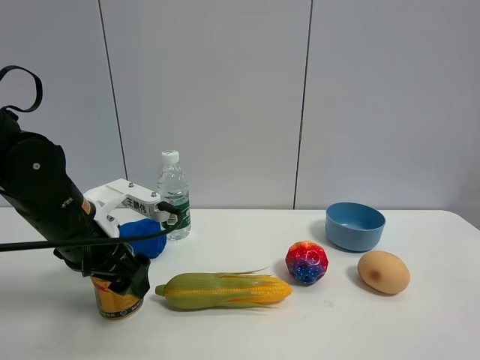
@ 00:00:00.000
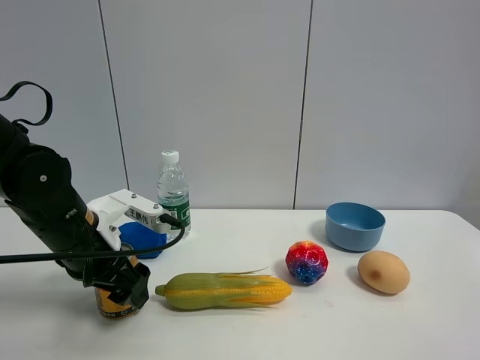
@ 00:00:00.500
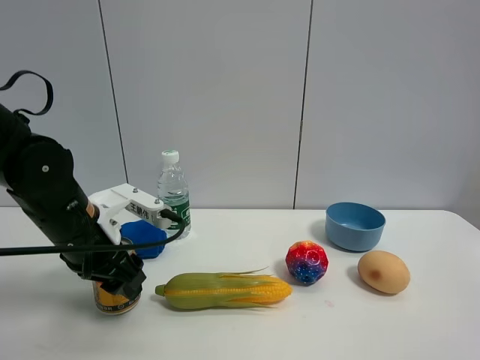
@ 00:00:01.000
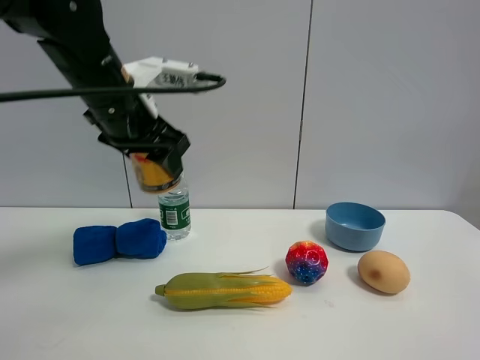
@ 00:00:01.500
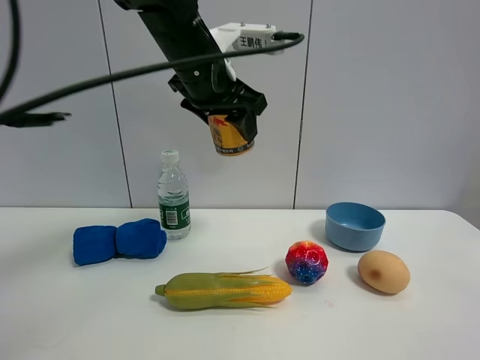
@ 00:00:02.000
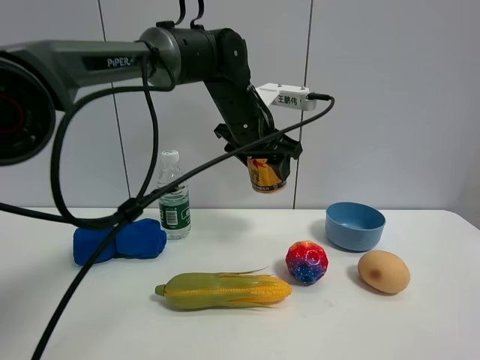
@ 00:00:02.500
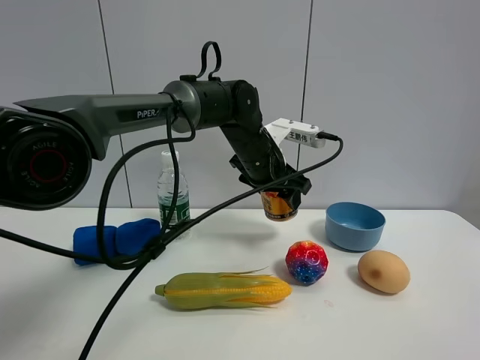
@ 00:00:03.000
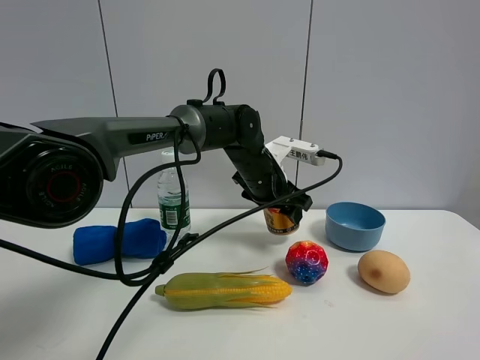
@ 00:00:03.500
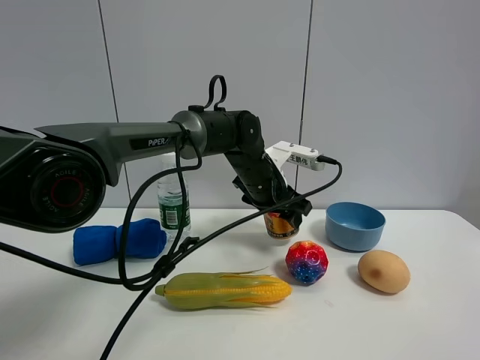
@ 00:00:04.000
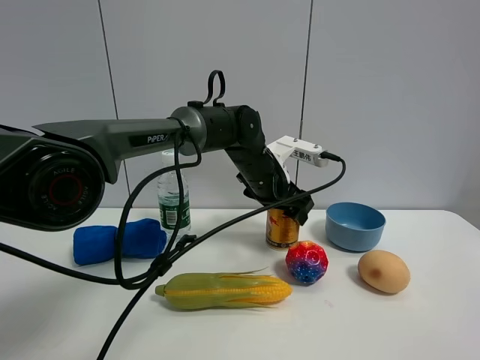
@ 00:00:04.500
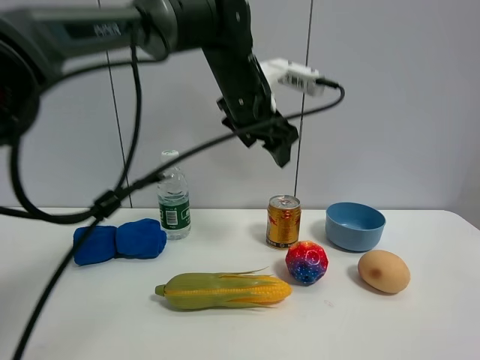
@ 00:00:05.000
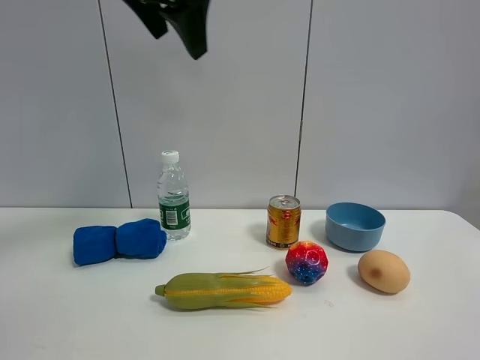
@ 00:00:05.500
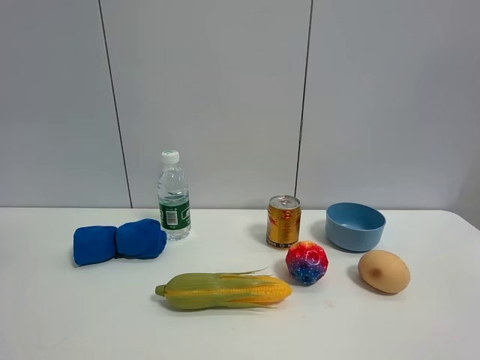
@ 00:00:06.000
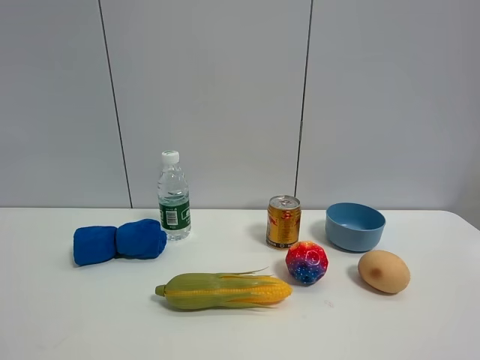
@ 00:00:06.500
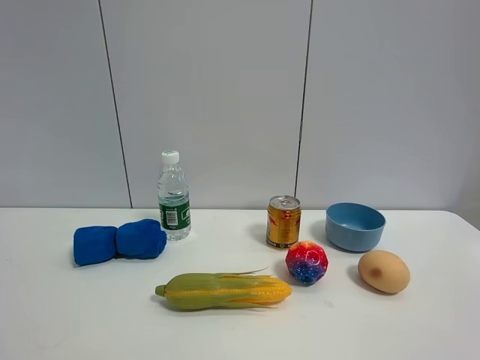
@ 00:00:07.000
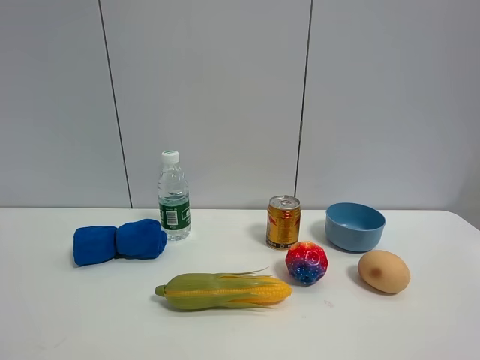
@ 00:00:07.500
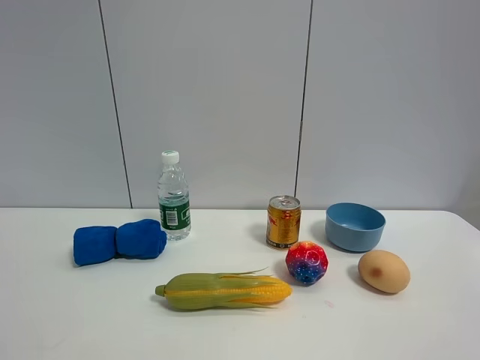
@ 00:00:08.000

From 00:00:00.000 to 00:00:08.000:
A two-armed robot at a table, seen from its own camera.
Task of the whole recording: the gripper move the object.
Step, from 00:00:01.000 to 00:00:04.500: Place the red bull on the table with the left gripper.
From 00:00:00.000 to 00:00:02.000: The left gripper travels upward, to the right and forward by approximately 25 cm, and closes up.
From 00:00:02.000 to 00:00:04.000: The left gripper shifts roughly 20 cm downward and to the right.
From 00:00:04.000 to 00:00:06.000: The left gripper heads to the left, upward and backward, covering some 50 cm, and opens its fingers.

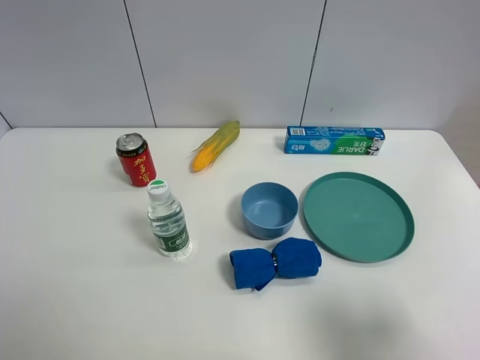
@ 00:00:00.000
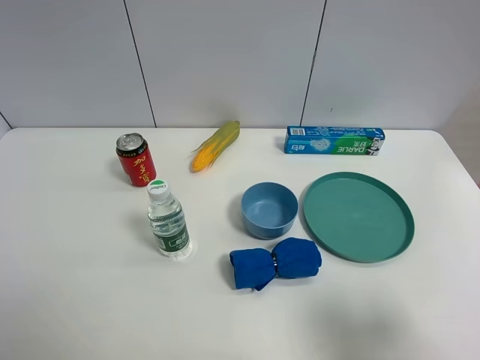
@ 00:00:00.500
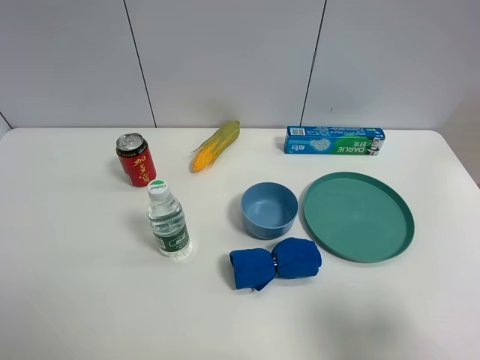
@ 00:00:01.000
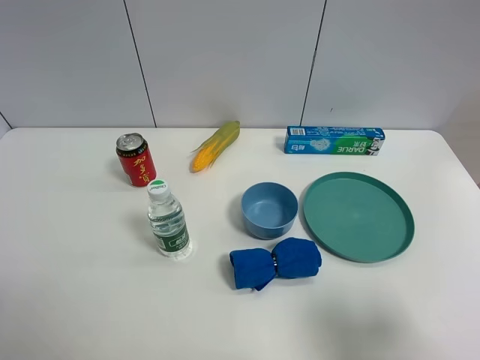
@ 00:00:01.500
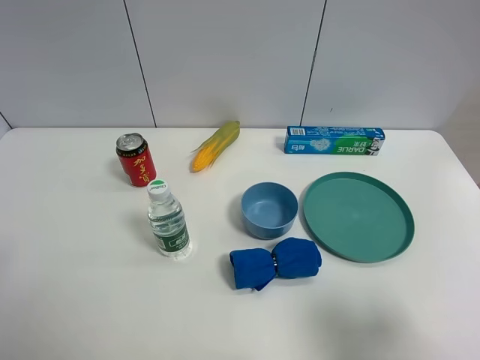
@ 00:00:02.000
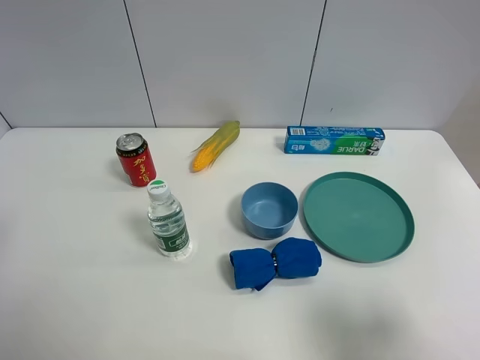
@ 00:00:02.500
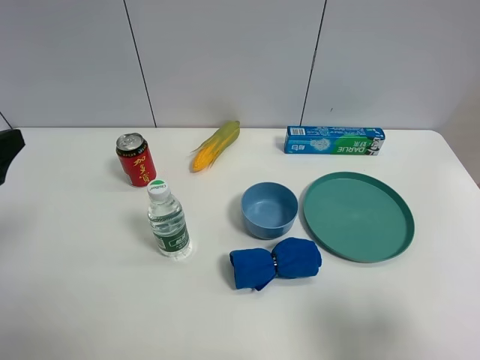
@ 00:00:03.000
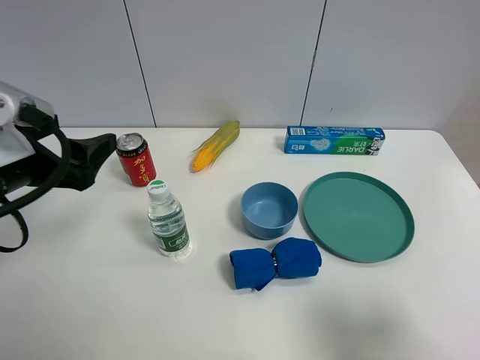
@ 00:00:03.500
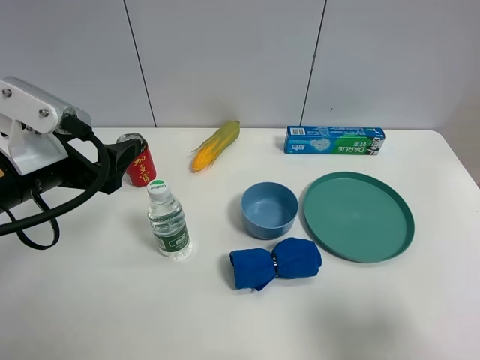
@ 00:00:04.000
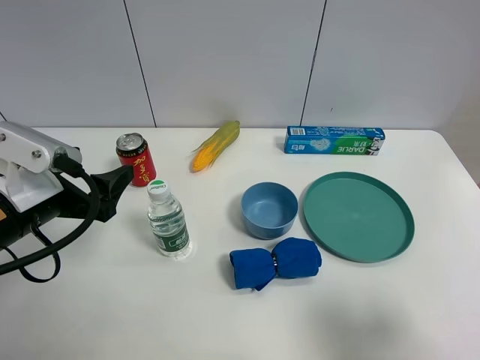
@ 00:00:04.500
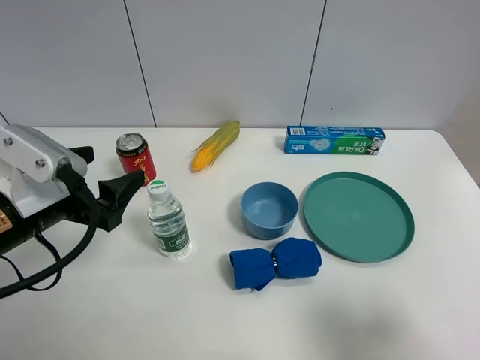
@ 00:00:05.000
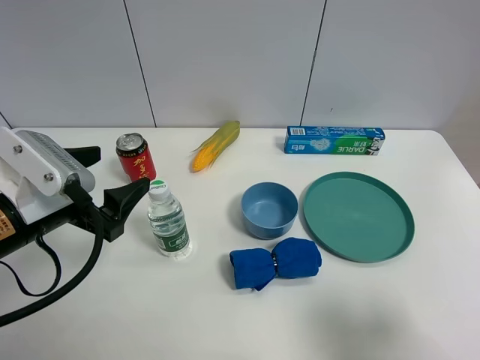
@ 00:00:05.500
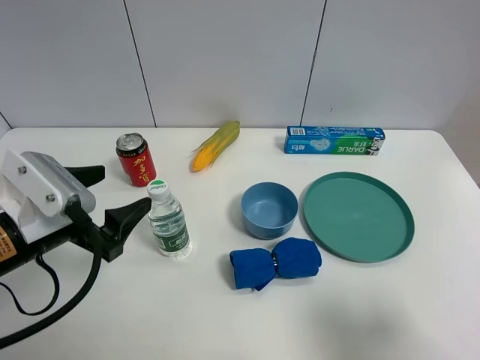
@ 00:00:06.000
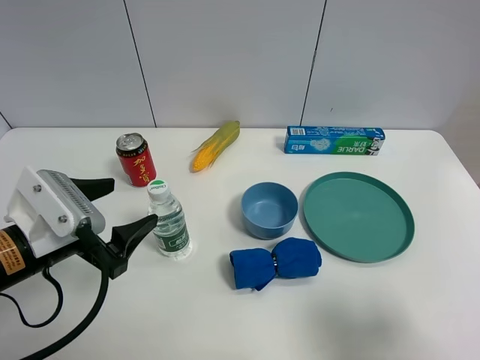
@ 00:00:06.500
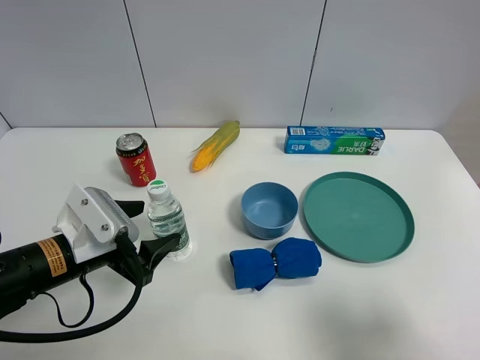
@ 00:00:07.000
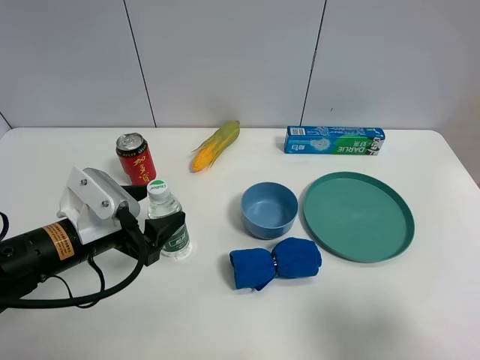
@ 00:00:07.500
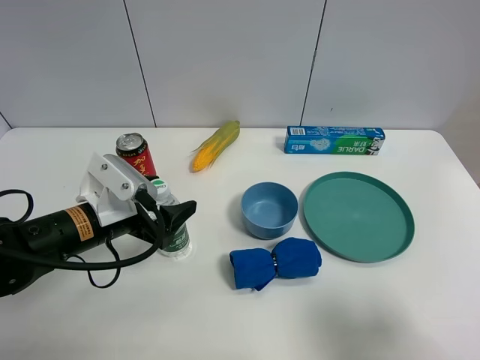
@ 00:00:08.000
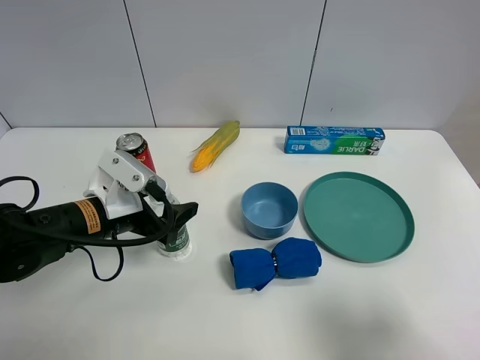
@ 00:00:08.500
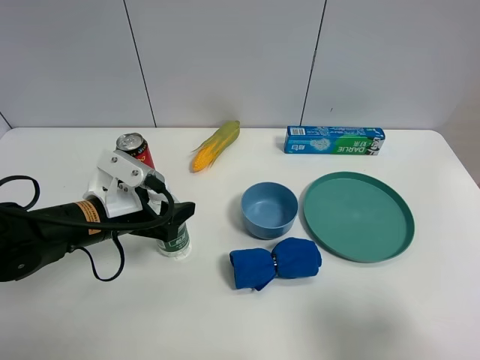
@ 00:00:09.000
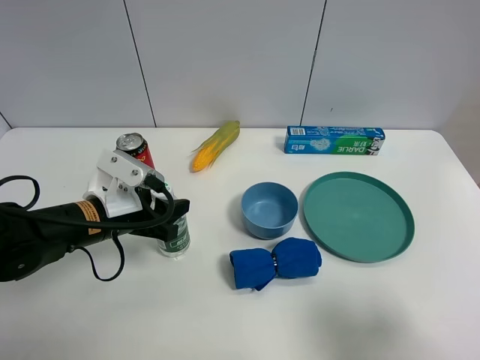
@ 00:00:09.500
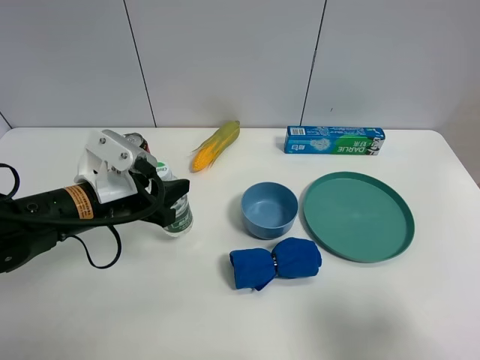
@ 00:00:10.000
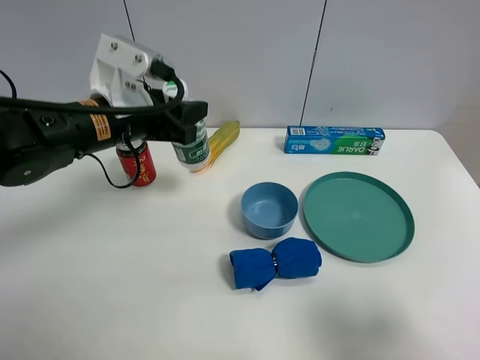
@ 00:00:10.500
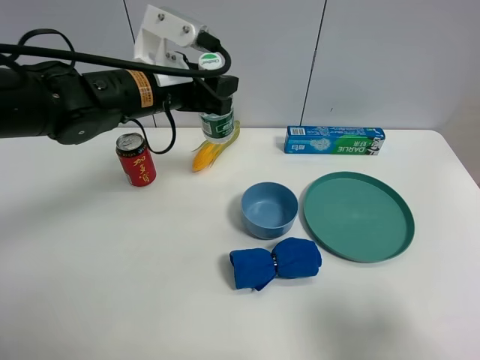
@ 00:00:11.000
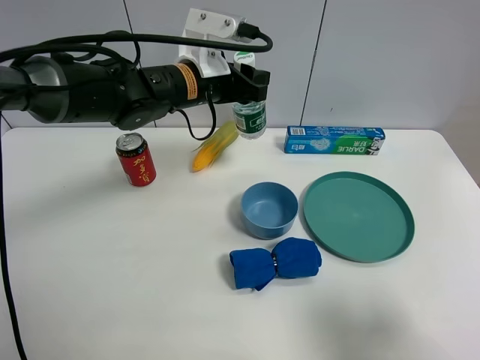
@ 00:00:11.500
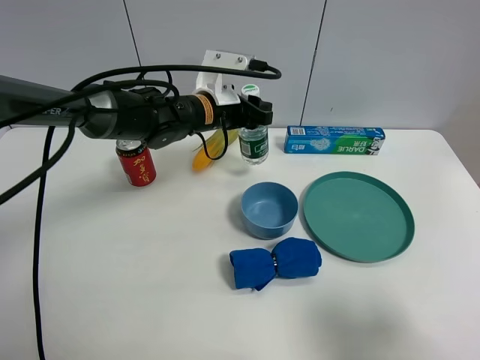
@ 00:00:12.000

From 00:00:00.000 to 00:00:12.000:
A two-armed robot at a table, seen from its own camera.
Task of the whole recording: the gripper move the object.
Step, from 00:00:00.000 to 00:00:09.000: Grasp the YiBao mineral water with the left gripper.
From 00:00:02.000 to 00:00:04.000: The left gripper shifts approximately 15 cm forward and to the right.
From 00:00:04.000 to 00:00:06.000: The left gripper shifts some 5 cm downward.
From 00:00:06.000 to 00:00:08.000: The left gripper moves forward, about 5 cm.
From 00:00:08.000 to 00:00:10.000: The left gripper closes up.
From 00:00:10.000 to 00:00:12.000: The left gripper goes about 20 cm forward and to the right.

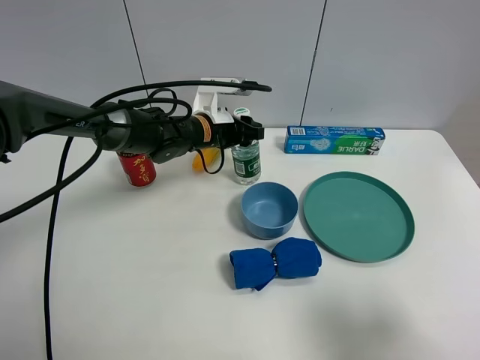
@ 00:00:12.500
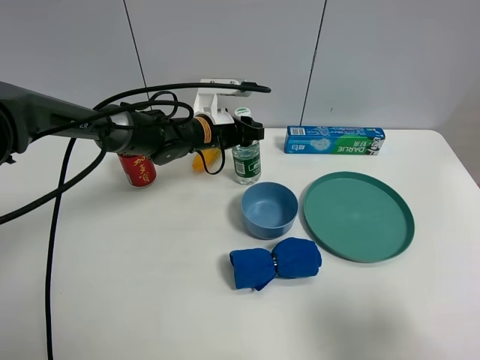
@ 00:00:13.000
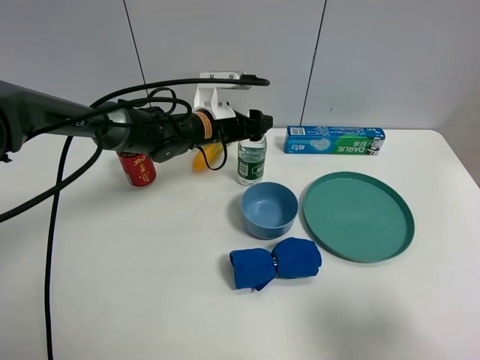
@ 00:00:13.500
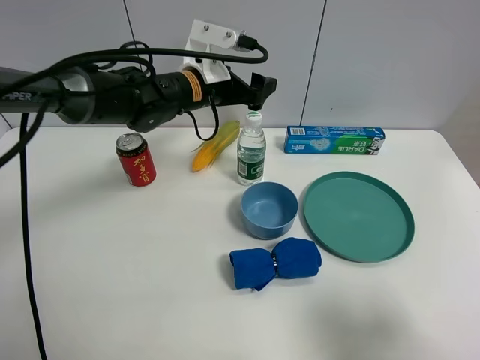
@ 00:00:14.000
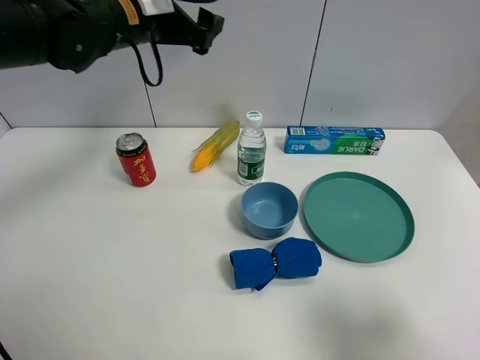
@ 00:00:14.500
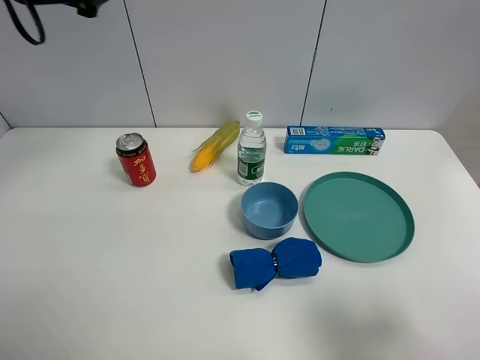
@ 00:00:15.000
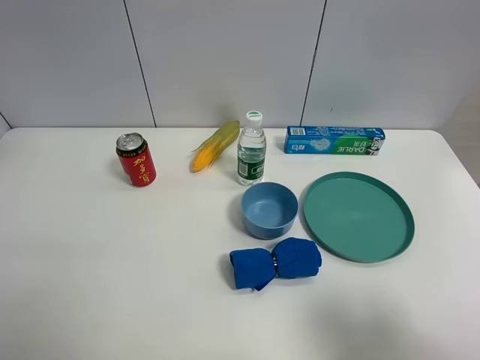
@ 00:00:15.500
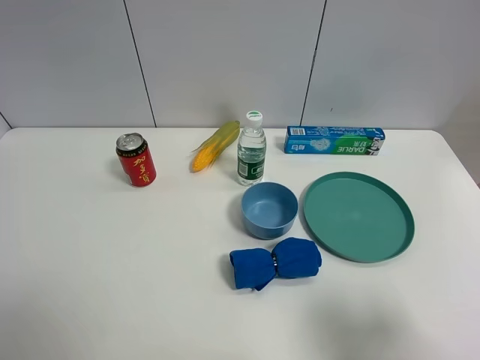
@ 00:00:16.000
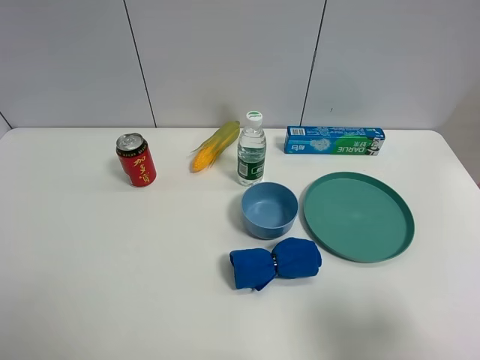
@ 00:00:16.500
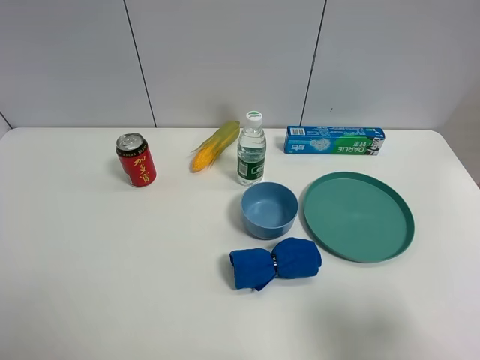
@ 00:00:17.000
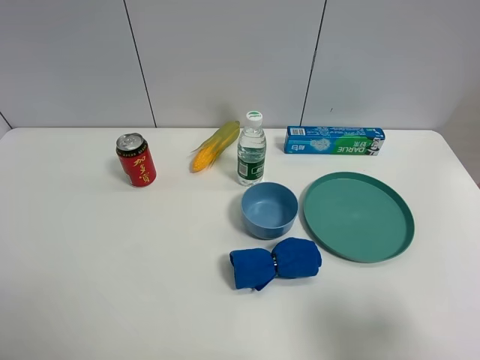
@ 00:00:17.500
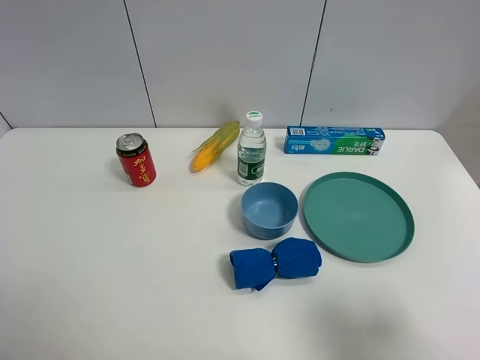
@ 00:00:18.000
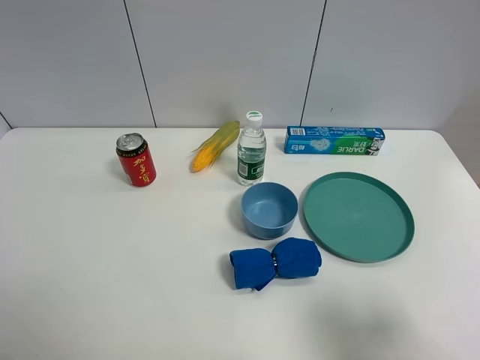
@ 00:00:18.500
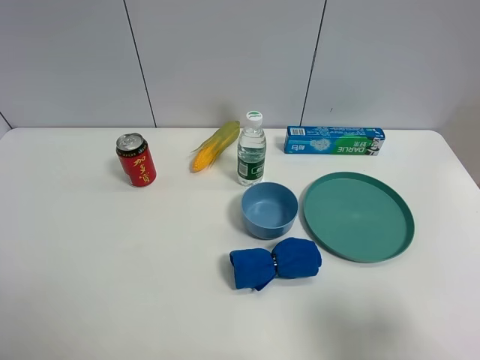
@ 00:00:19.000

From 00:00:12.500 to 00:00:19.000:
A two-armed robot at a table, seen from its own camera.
Task of the whole recording: the gripper move the object.
From 00:00:12.500 to 00:00:14.500: The left gripper goes some 20 cm upward and to the left, and opens.
From 00:00:14.500 to 00:00:17.000: The left gripper is displaced backward and to the left by about 40 cm.
